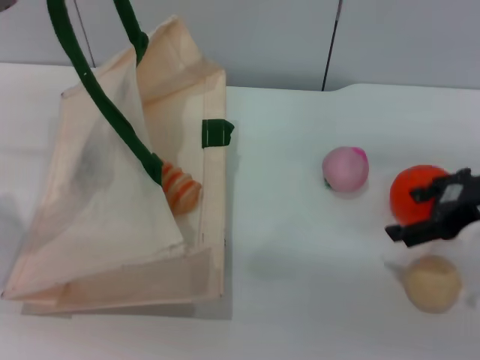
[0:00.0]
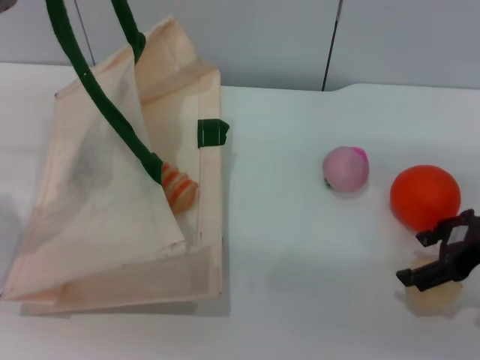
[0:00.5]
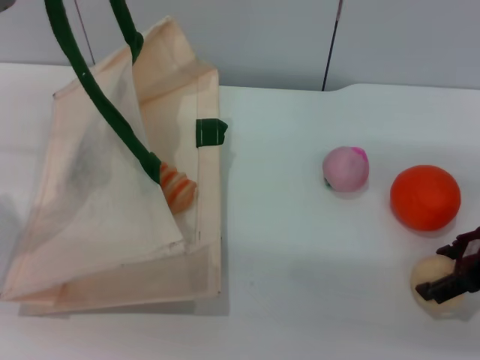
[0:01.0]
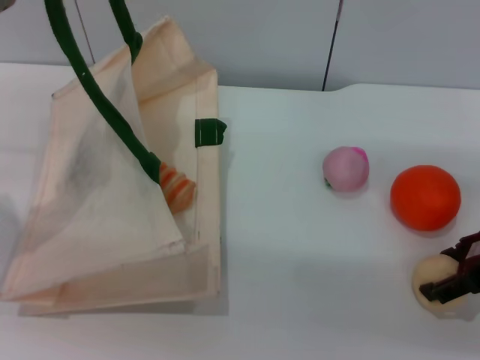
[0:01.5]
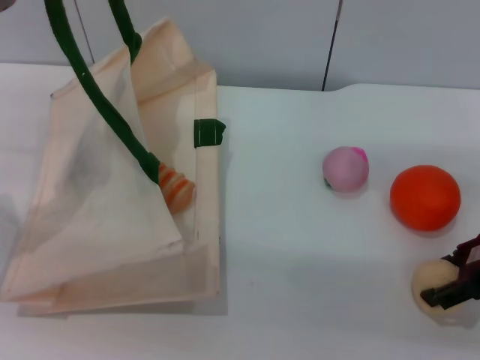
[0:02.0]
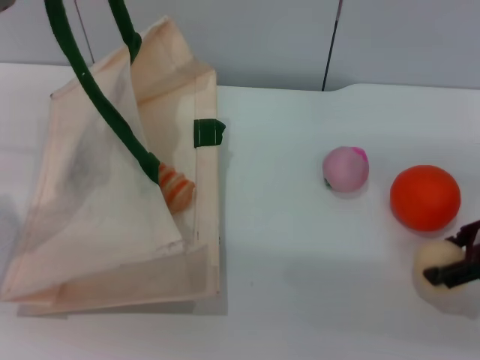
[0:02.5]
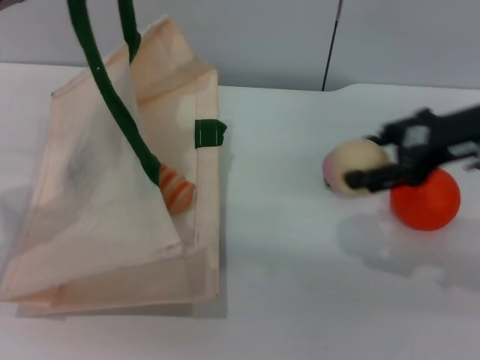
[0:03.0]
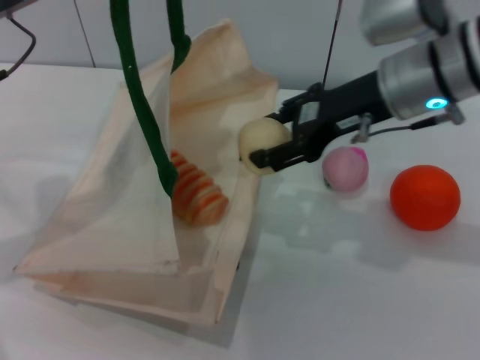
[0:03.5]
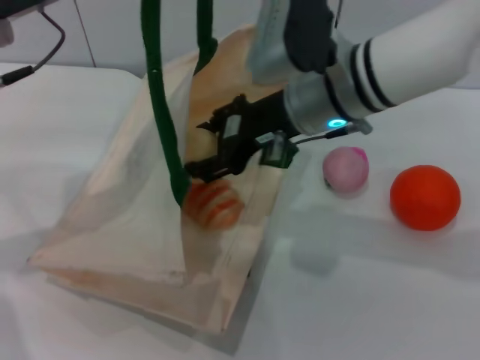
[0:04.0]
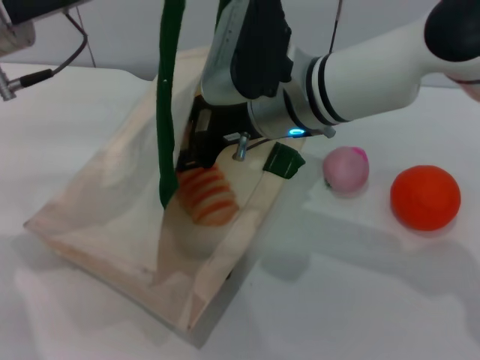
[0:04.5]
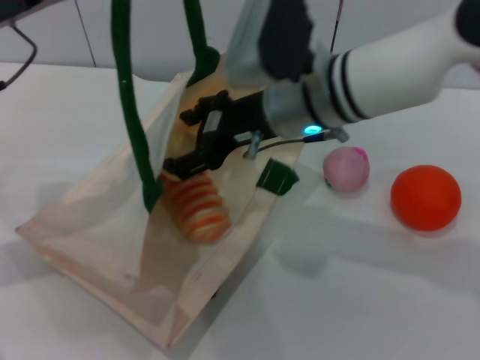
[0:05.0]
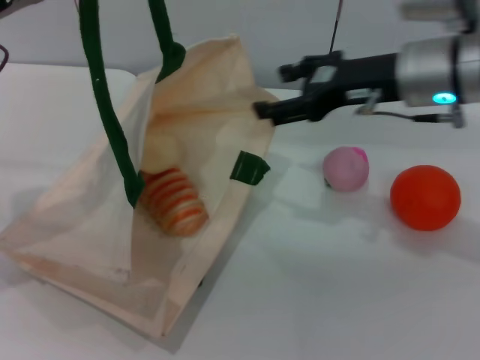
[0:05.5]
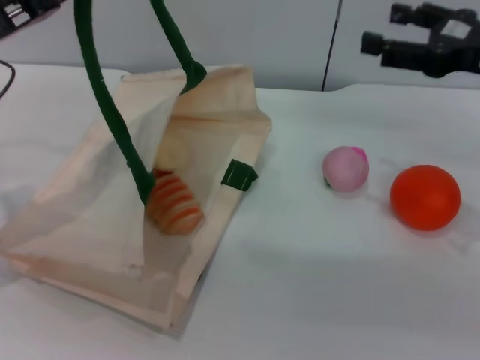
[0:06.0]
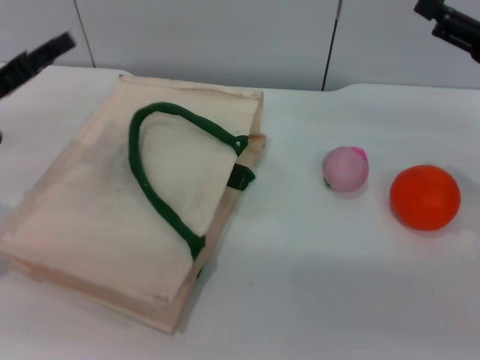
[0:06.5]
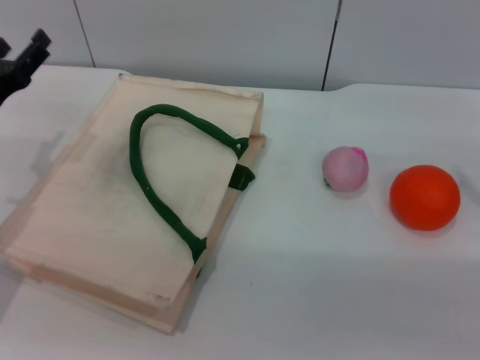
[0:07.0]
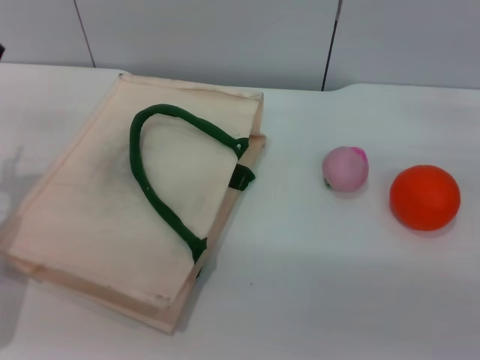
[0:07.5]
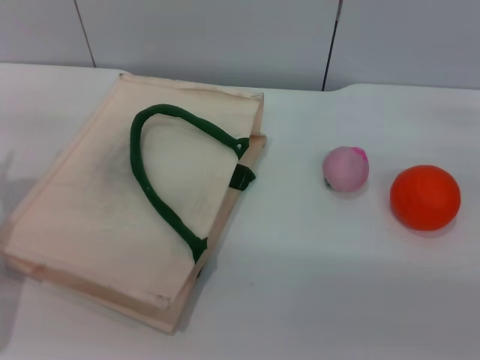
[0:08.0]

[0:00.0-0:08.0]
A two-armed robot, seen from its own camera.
Task of the whole recording: pick up the bread and egg yolk pastry from the table and place it in the white handbag.
Step, 0:00.0 to 0:02.0: Pick up the egg yolk pastry with the right gripper.
Step, 0:02.5 to 0:05.0: Place the egg yolk pastry into the woven bag with the right gripper.
Step, 0:05.5 to 0:06.0: Lower the woven bag with the left gripper to close it.
0:00.0 to 0:02.0: There are only small adjustments of the grippers.
0:02.0 to 0:04.0: The right gripper travels to the left by roughly 20 cm. Meanwhile the left gripper travels to the right by some 5 cm.
0:04.0 to 0:06.0: The right gripper moves to the right, roughly 20 cm, and opens up. Meanwhile the left gripper changes place by some 5 cm.
0:06.0 to 0:08.0: The right gripper heads downward and to the right, covering some 15 cm. The left gripper heads downward, covering roughly 10 cm, and opens.

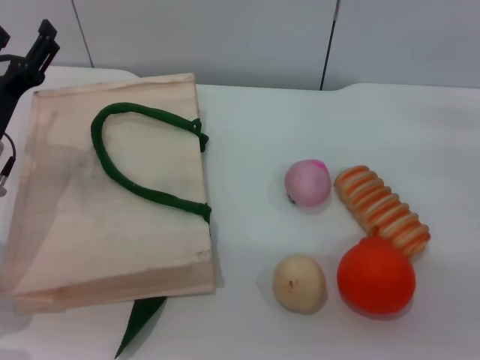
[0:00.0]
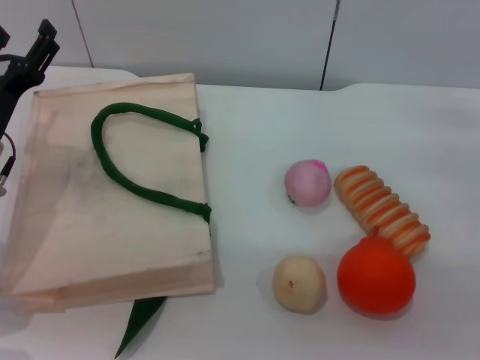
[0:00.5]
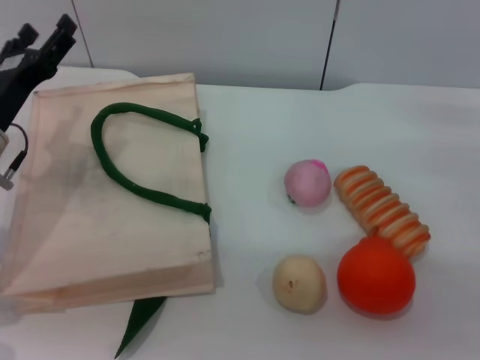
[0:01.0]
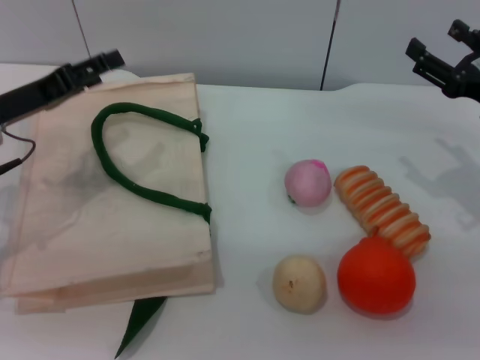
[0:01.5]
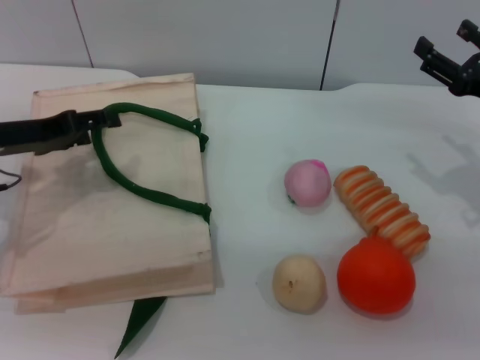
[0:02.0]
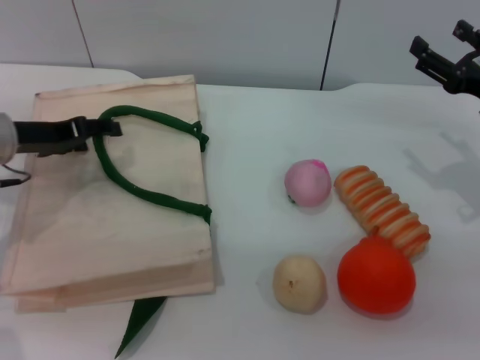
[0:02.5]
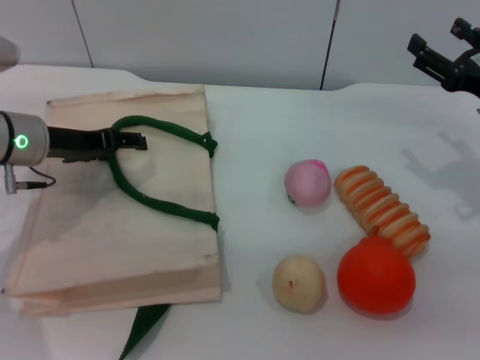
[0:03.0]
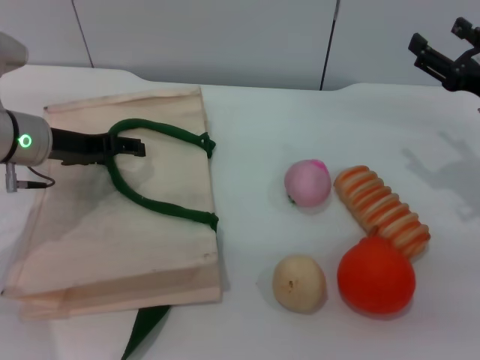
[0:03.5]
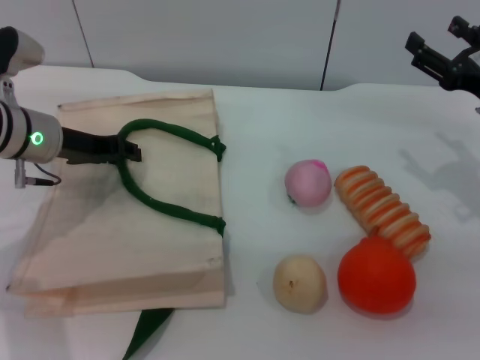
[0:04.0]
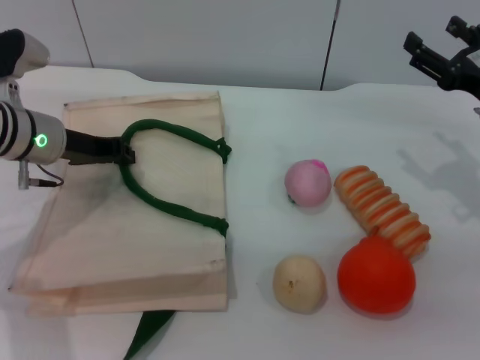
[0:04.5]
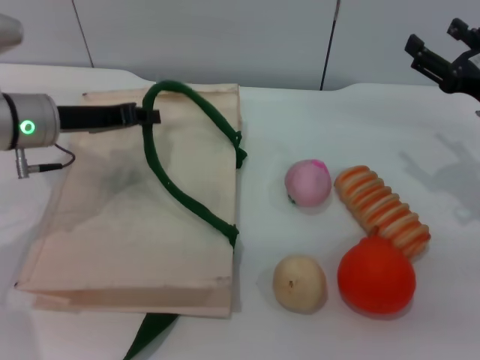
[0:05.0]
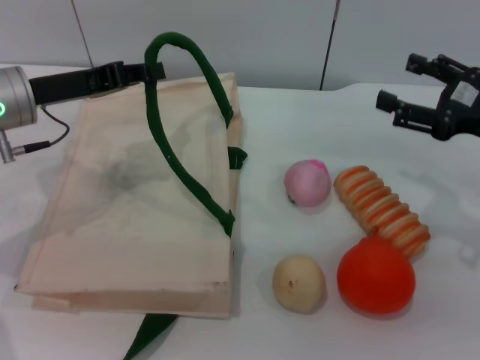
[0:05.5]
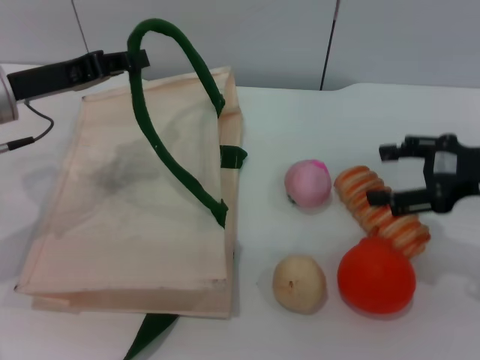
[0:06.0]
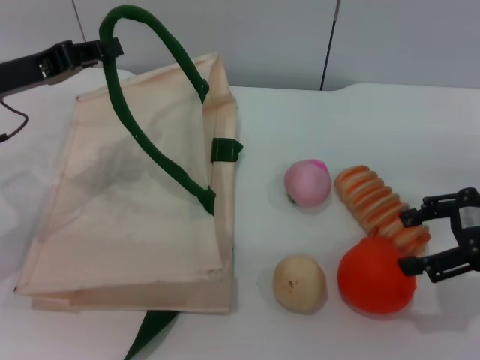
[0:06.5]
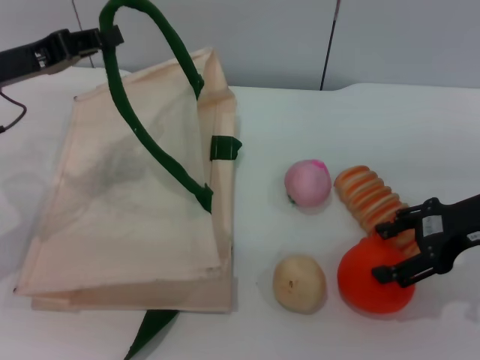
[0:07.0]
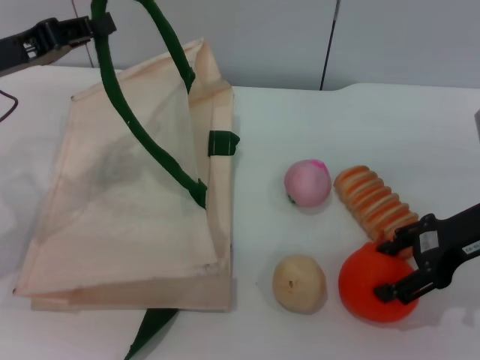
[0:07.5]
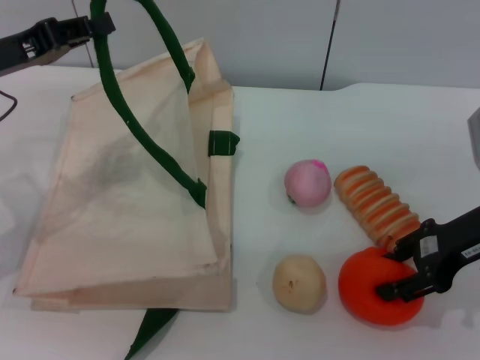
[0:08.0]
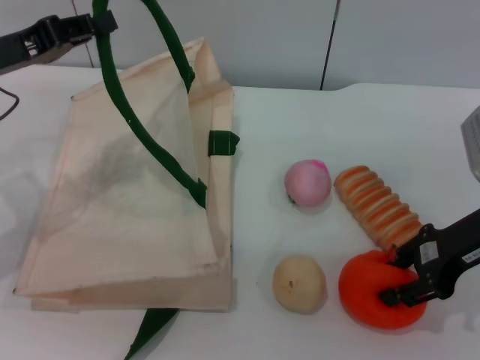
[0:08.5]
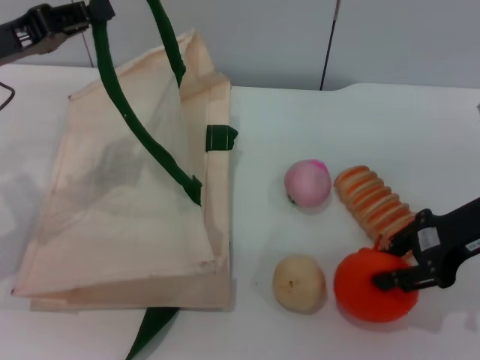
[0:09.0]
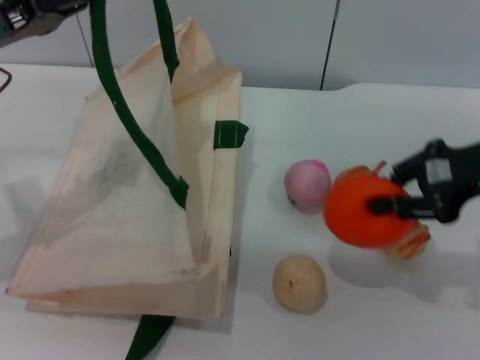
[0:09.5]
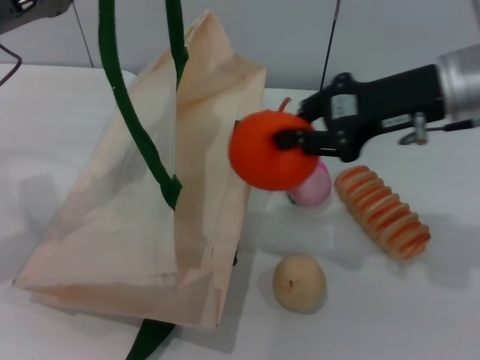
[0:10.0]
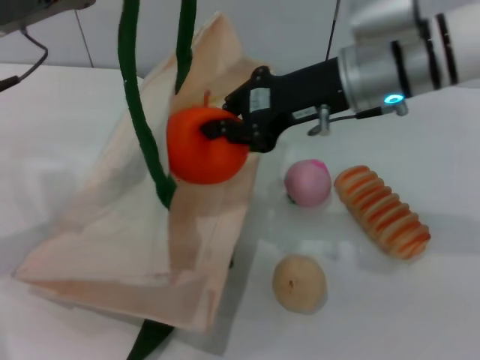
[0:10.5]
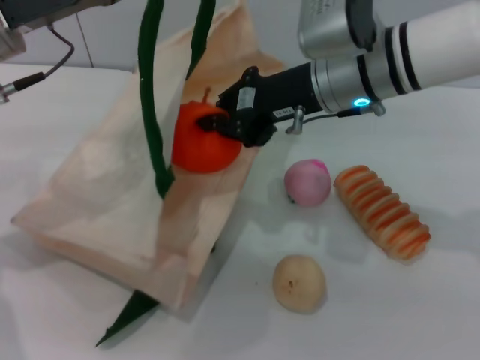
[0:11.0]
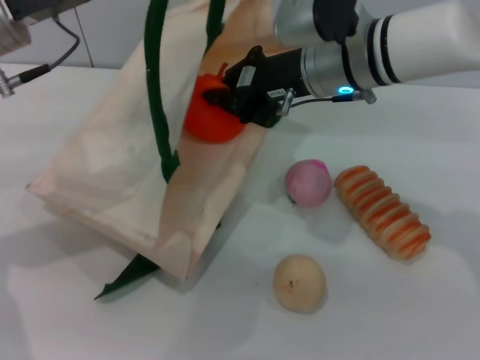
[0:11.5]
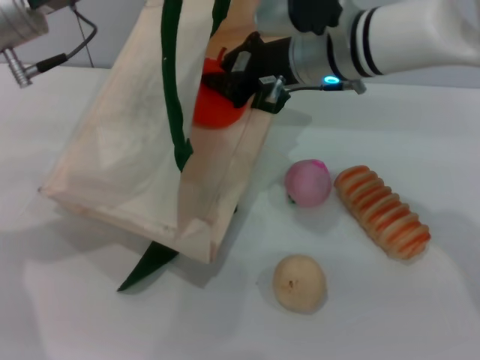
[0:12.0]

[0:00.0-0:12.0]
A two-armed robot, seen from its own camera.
Task of the whole recording: pick up the orange and peach from the table and place it in the white handbag.
Step, 0:00.0 to 0:05.0: Lift the woven bag with the left gripper to open it.
Step, 0:05.5 to 0:09.5: Pick up the orange with the right gripper.
0:00.0 to 0:02.0: The left gripper changes place by some 5 cm.
0:02.0 to 0:04.0: The left gripper shifts some 5 cm forward.
0:04.0 to 0:06.0: The left gripper moves about 5 cm, and closes its fingers.
0:08.0 to 0:10.0: The right gripper shifts roughly 10 cm upward and to the left, and closes its fingers.
0:10.0 to 0:12.0: The left gripper is displaced to the right by roughly 5 cm, while the right gripper moves to the left and forward, about 15 cm.

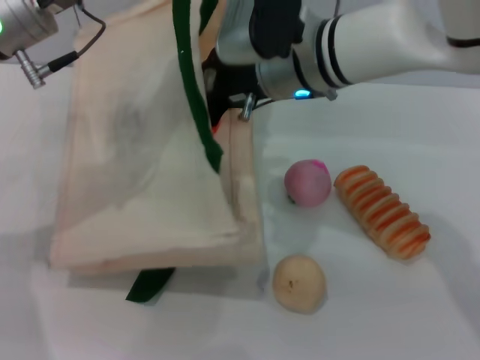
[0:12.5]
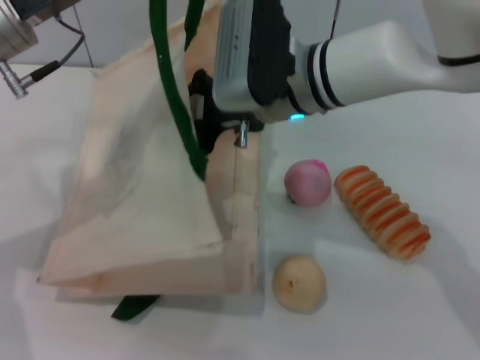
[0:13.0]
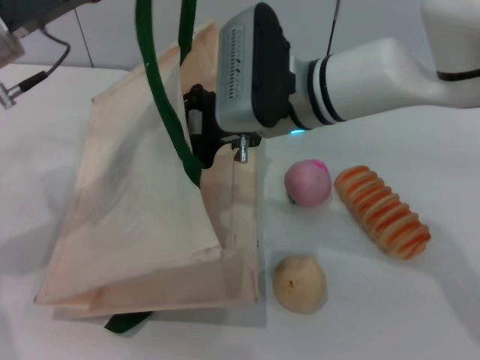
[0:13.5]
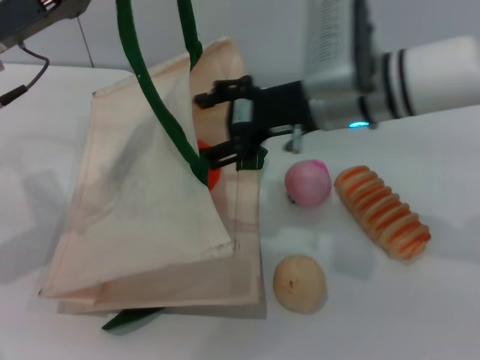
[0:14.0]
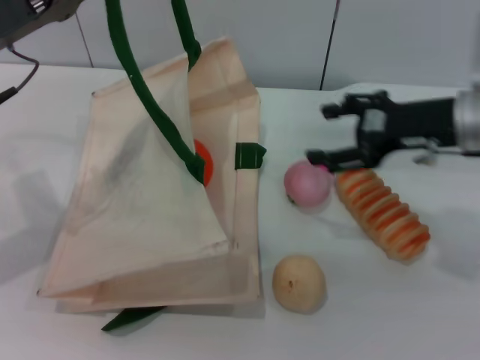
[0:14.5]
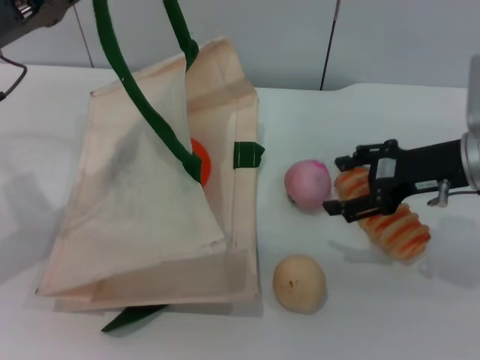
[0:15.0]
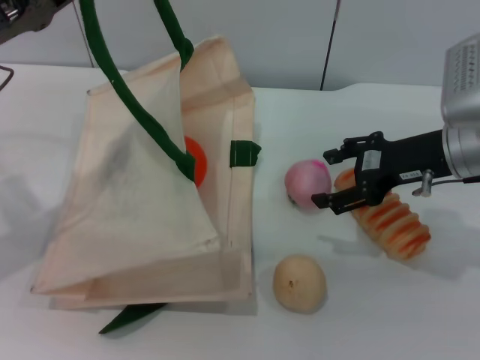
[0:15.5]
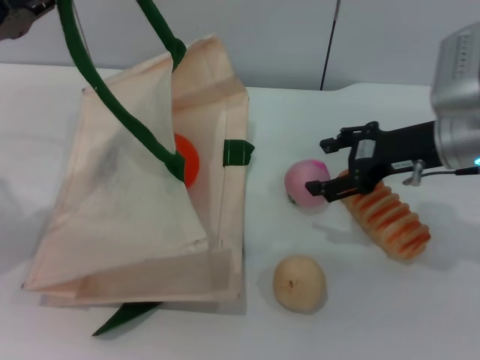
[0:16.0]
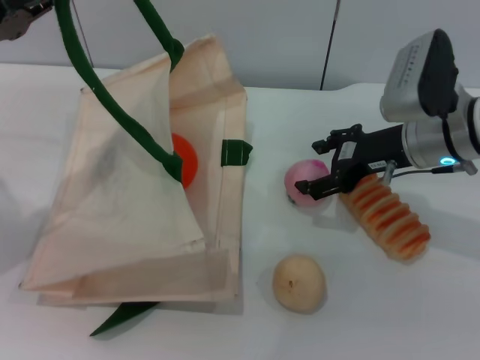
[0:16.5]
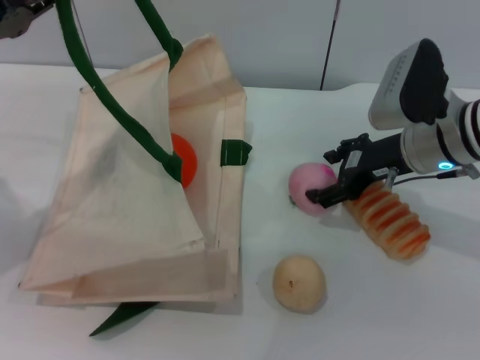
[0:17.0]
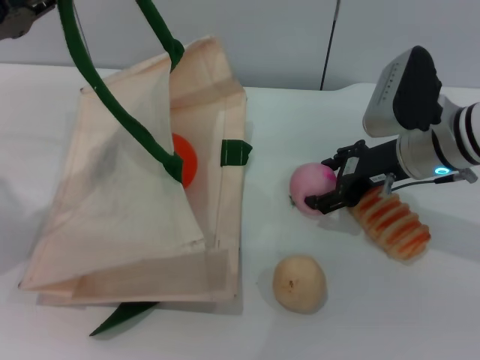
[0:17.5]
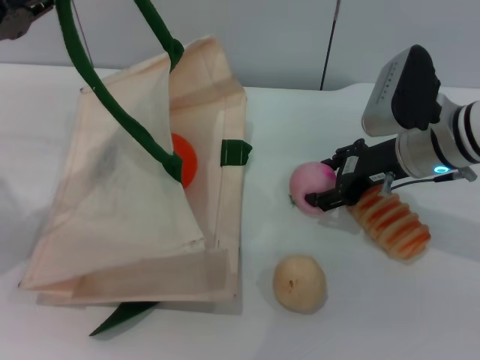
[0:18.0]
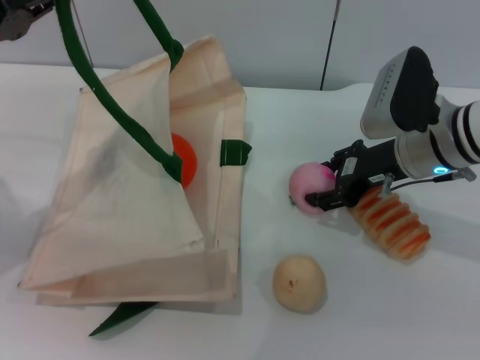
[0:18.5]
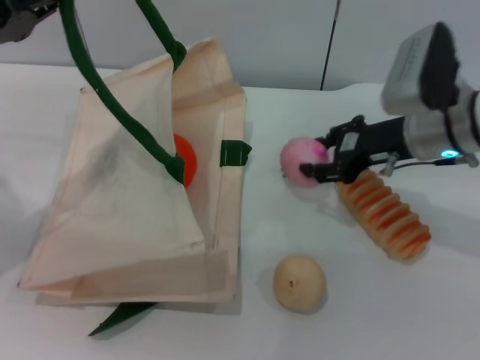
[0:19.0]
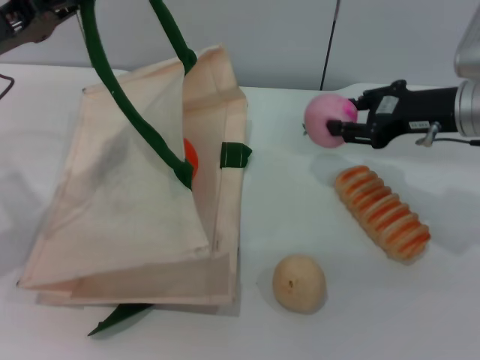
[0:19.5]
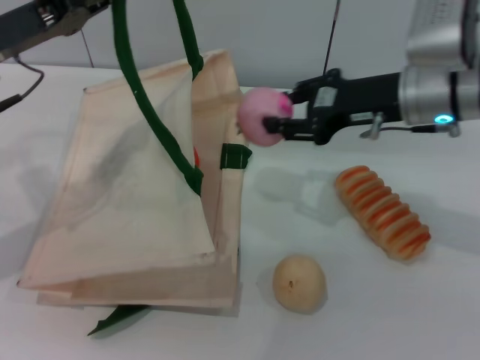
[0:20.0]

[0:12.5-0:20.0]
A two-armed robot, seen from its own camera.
Task of the whole recording: pick up the orange and peach from the table and place it in the white handbag.
Step, 0:14.5 to 0:19.5: Pick up the peach with the right gripper.
0:12.5 to 0:14.5: The left gripper is displaced to the left by about 5 cm. Meanwhile the right gripper travels to the right by roughly 20 cm, and opens up.
0:14.5 to 0:16.5: The right gripper moves roughly 5 cm.
0:16.5 to 0:18.0: The grippers stay close to where they were, moving slightly.
0:18.0 to 0:20.0: The right gripper goes approximately 5 cm upward, and closes up.
